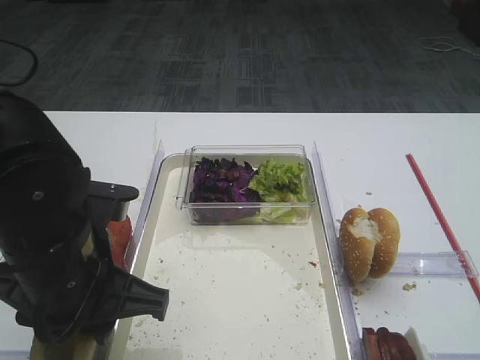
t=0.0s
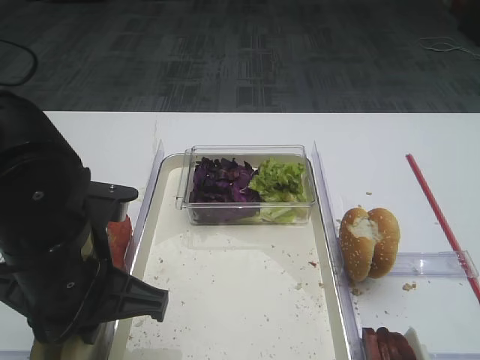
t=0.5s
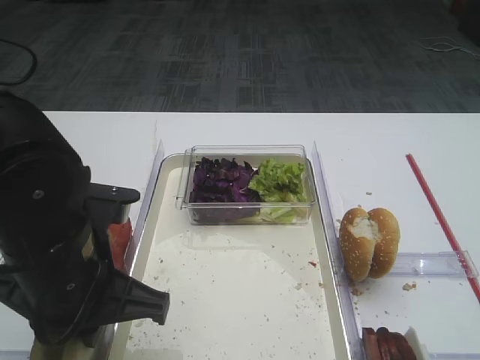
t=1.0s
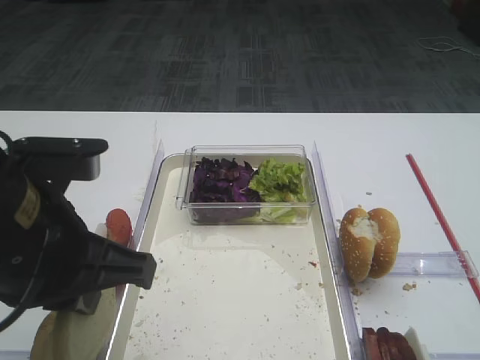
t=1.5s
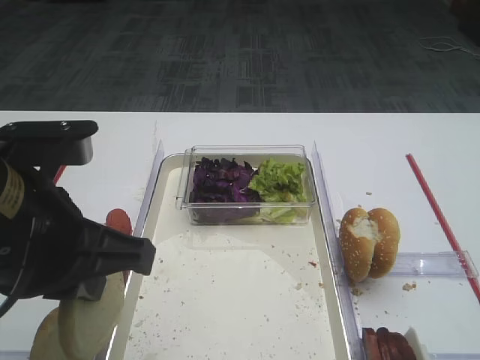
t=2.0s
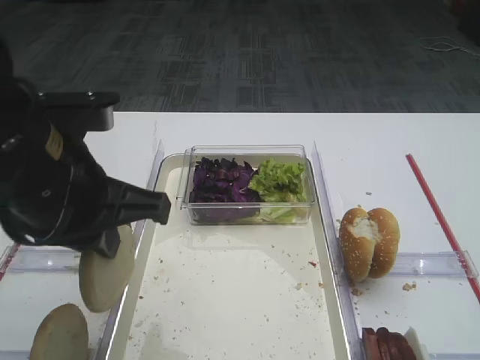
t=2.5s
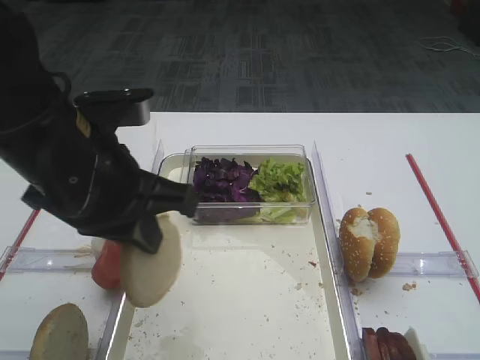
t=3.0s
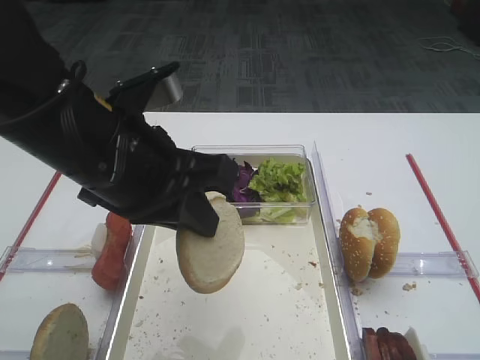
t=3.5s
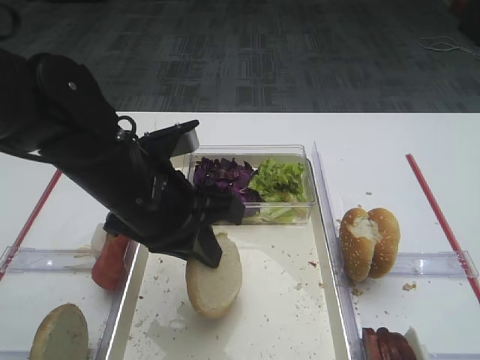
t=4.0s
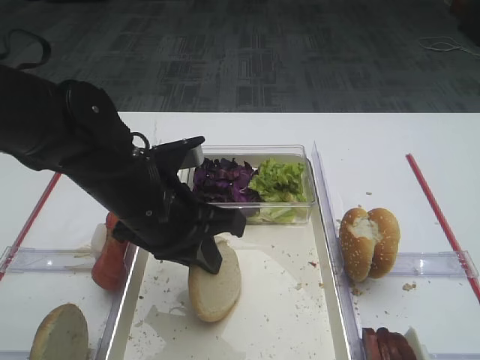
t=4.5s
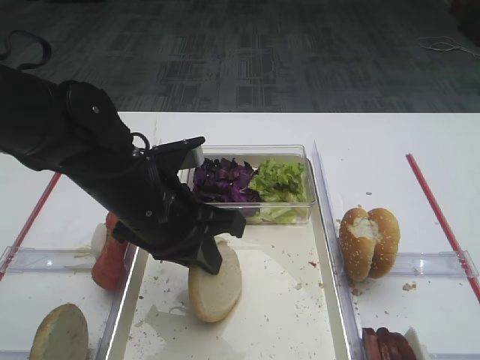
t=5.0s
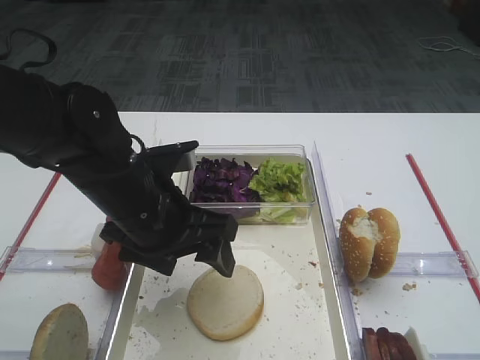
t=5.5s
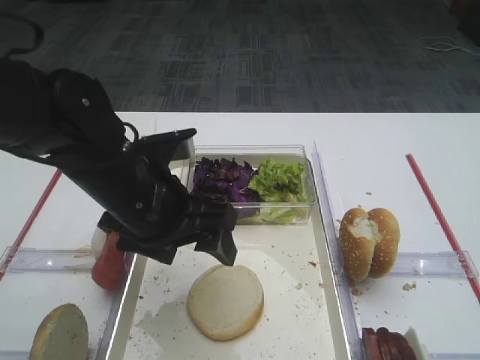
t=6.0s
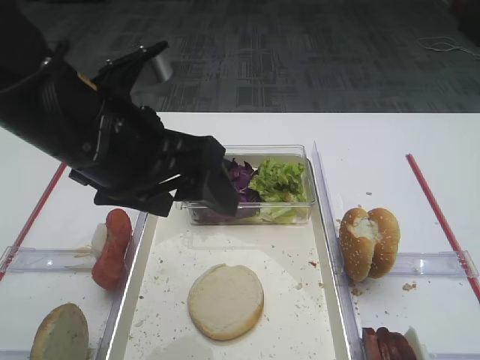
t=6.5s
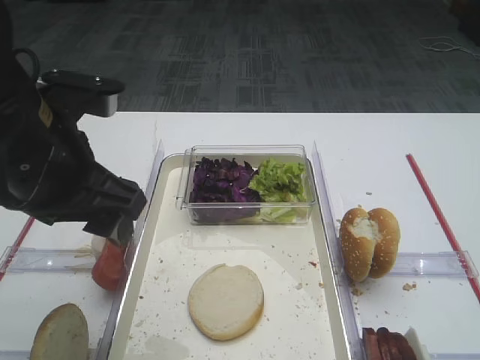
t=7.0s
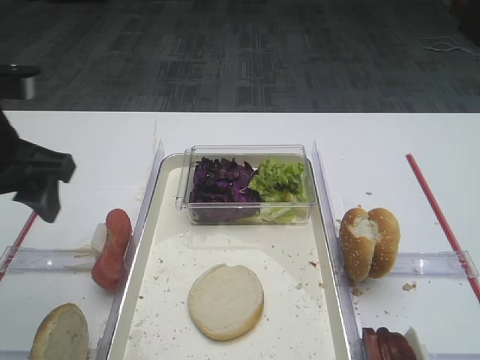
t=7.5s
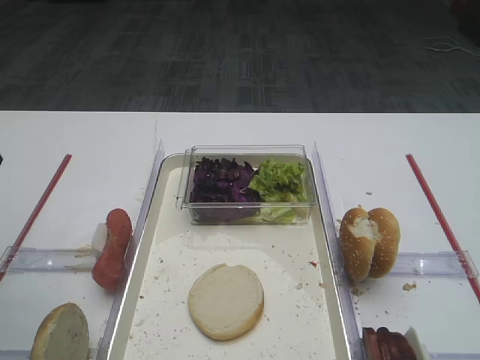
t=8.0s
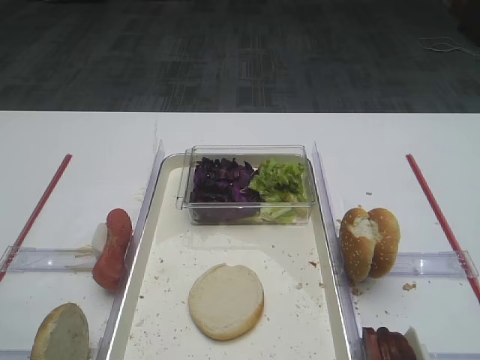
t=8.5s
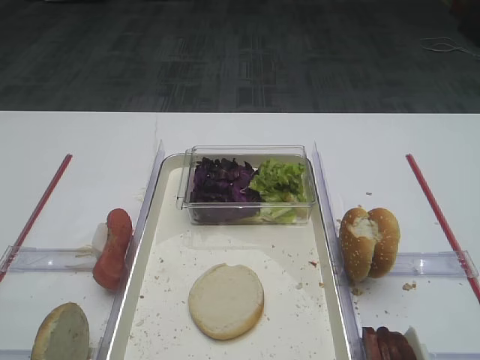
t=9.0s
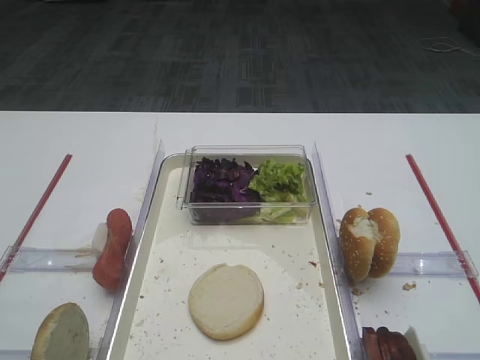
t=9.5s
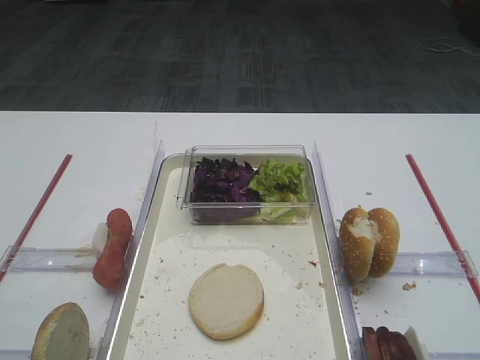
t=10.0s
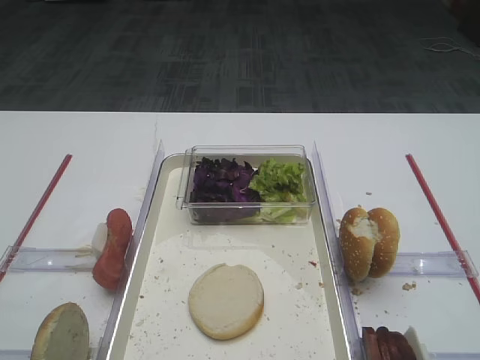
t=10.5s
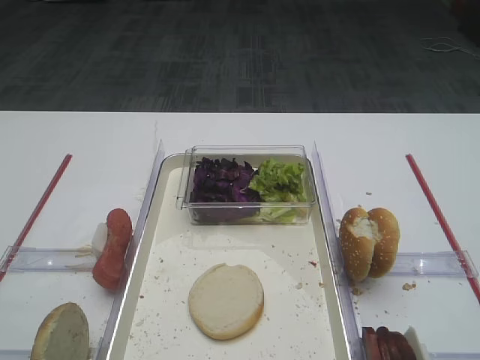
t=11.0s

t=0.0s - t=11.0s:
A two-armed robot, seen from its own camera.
Step, t=0.0s - t=2.0s: Pick up the bread slice with the left gripper.
Step, t=2.5s - t=6.0s: Place the bread slice on the tray with the left gripper.
t=0.0s - t=2.0s: The left gripper shifts roughly 5 cm upward, and closes up.
t=2.0s - t=3.5s: The left gripper goes about 5 cm forward.
t=3.5s - t=5.5s: The left gripper shifts some 10 cm downward, and opens.
t=5.5s - t=7.5s: The left gripper heads to the left and upward, covering some 15 cm.
t=7.5s - t=9.0s: The left gripper is displaced backward by some 20 cm.

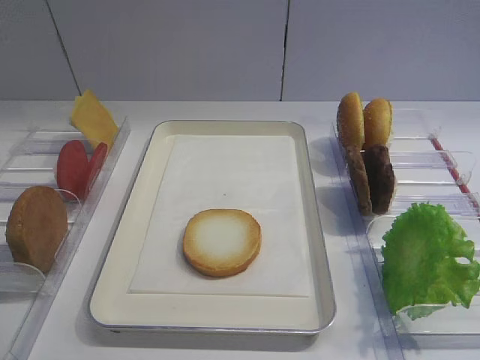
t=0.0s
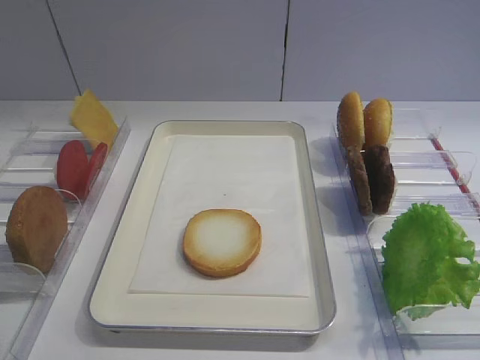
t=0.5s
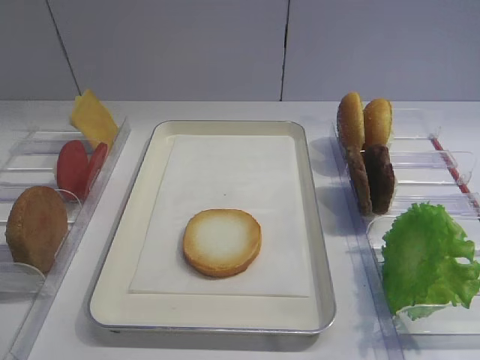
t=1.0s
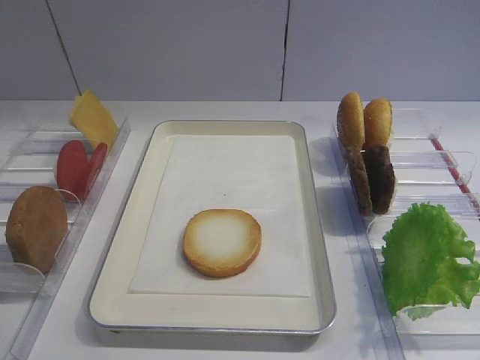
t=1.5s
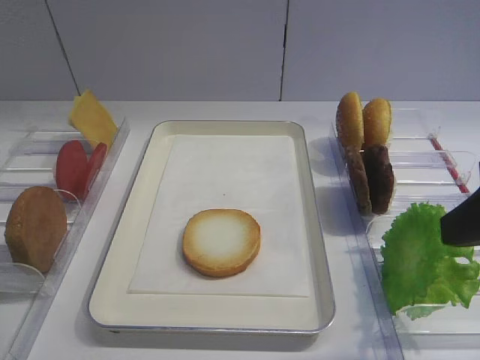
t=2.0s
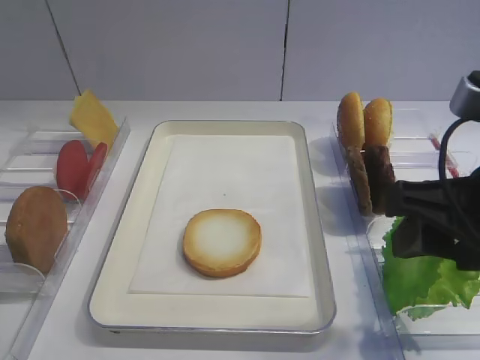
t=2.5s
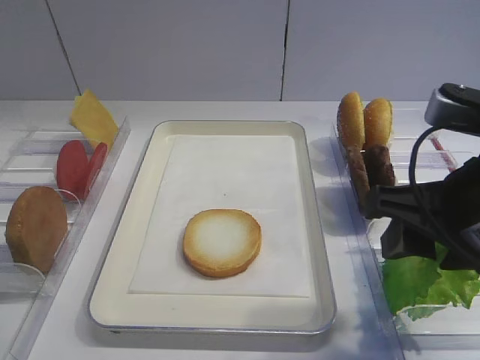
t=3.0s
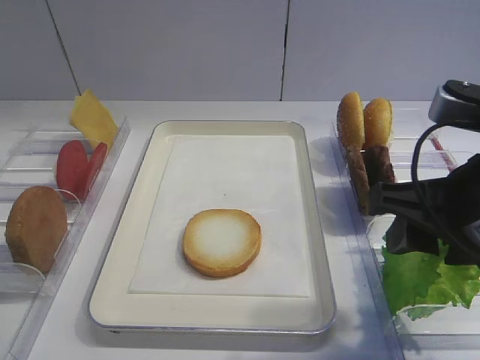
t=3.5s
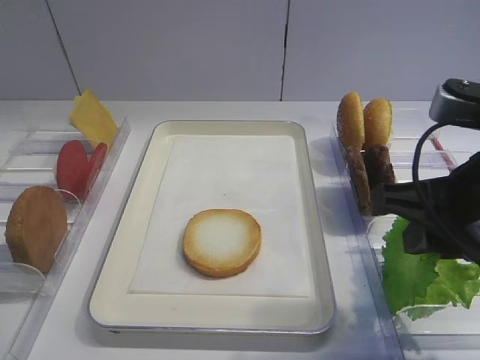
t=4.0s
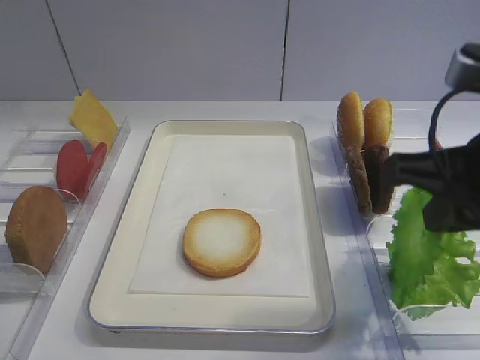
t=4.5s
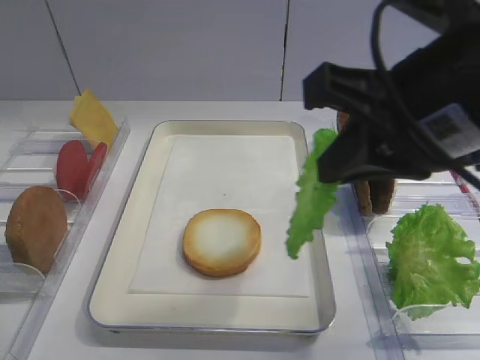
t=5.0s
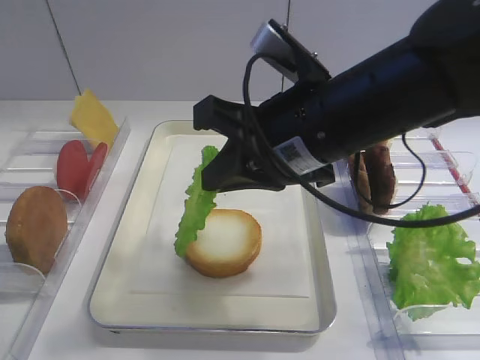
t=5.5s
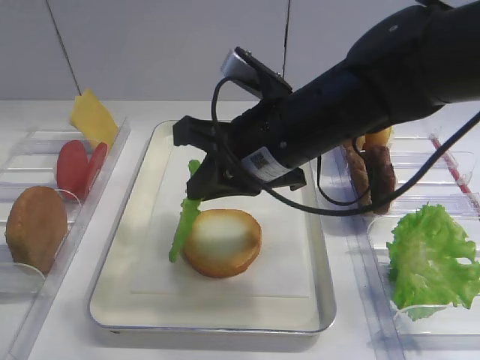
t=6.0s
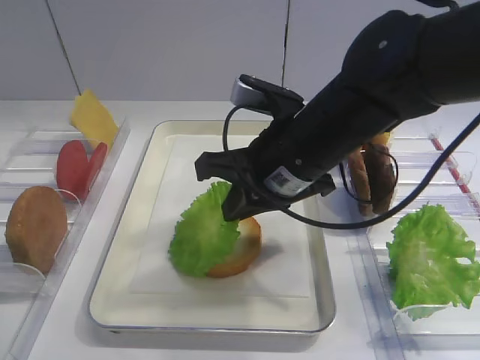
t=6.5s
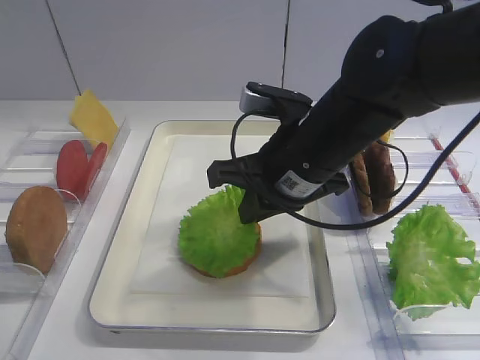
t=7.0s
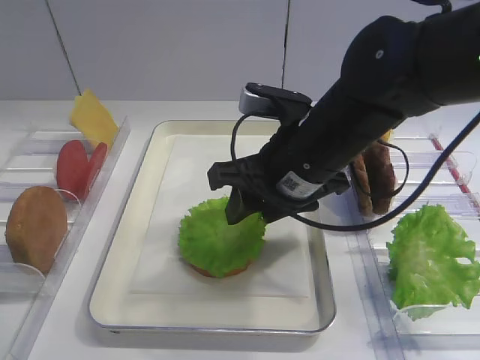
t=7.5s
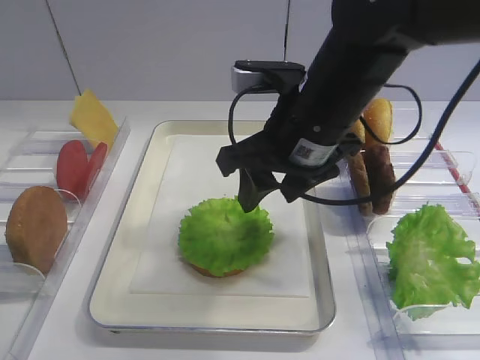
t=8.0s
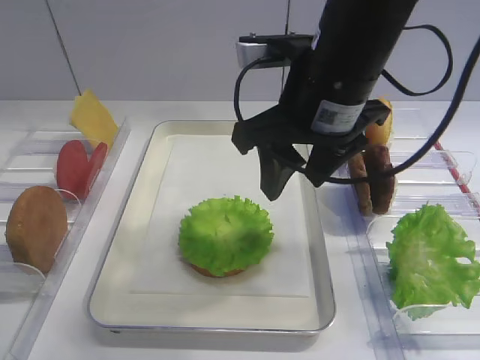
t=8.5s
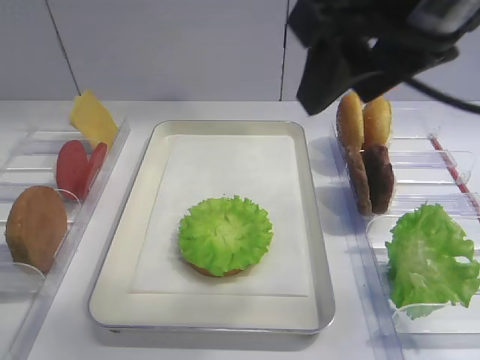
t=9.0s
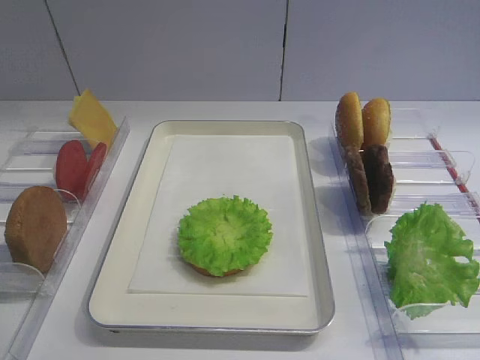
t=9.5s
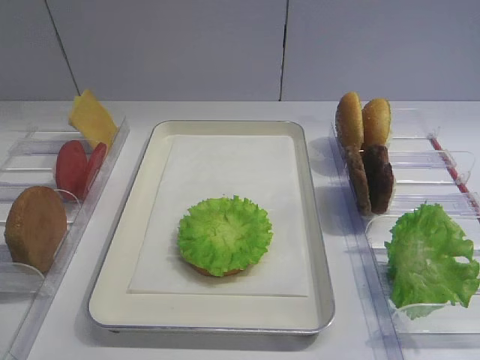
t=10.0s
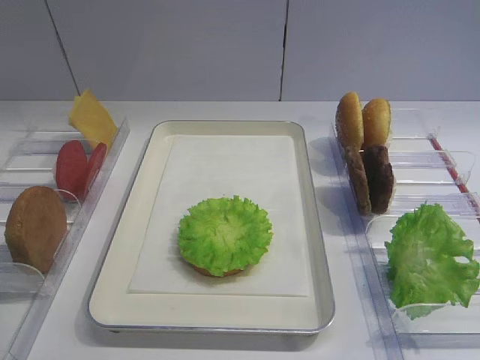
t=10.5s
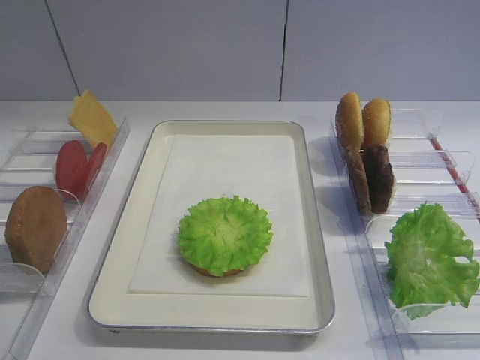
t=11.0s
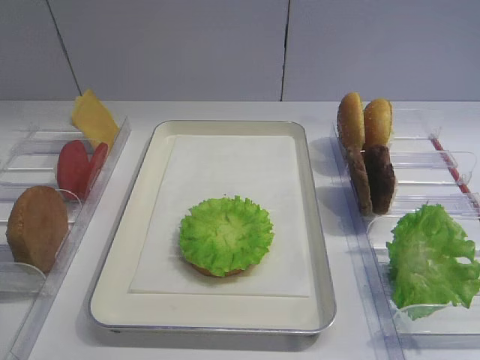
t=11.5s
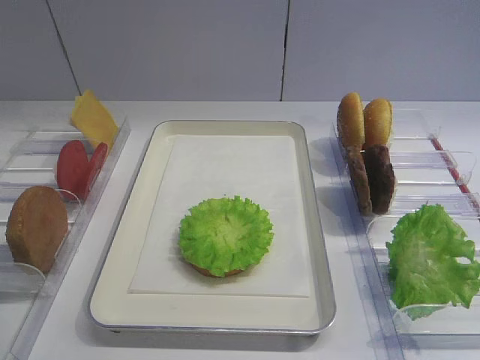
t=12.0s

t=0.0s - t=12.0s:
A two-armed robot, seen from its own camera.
Step, t=0.0s - t=4.5s: Pick up the lettuce leaf with the right gripper.
Step, t=5.0s - t=8.0s: Place the lettuce leaf on the bread slice with the right gripper.
t=2.0s - t=4.0s: The right gripper shifts by roughly 5 cm, and closes.
t=4.0s - t=6.0s: The right gripper moves to the left and forward, roughly 15 cm.
t=6.0s - t=8.0s: The right gripper opens its fingers.
t=8.0s - t=10.0s: The right gripper moves backward and to the right, some 35 cm.
t=10.0s - t=12.0s: The right gripper goes roughly 5 cm downward.
